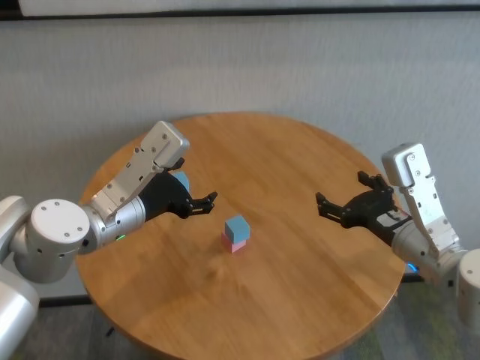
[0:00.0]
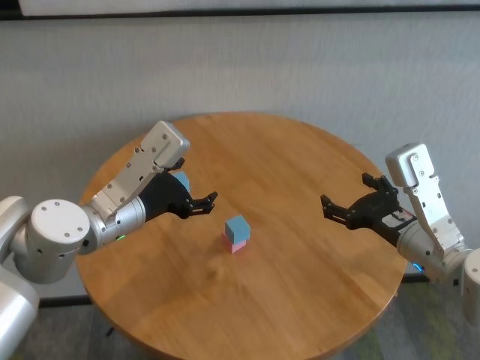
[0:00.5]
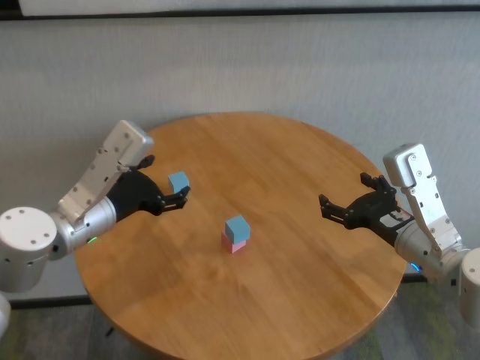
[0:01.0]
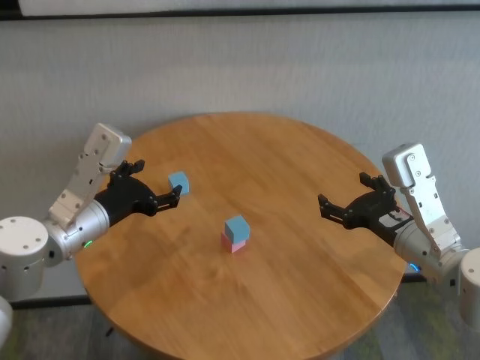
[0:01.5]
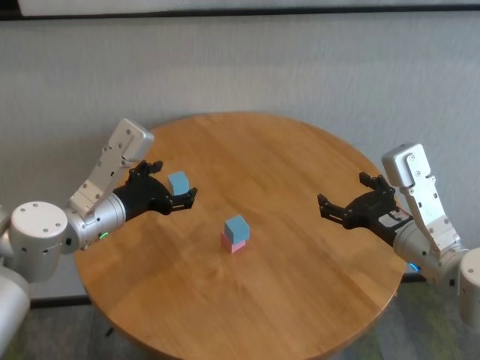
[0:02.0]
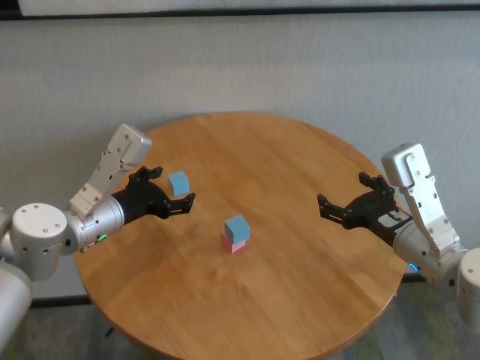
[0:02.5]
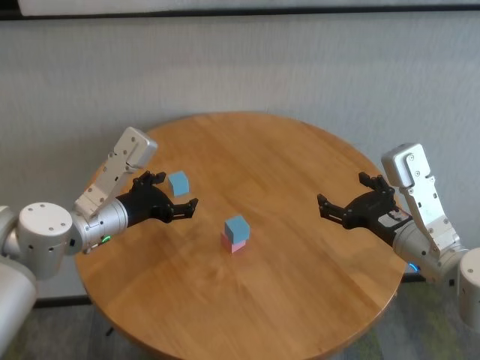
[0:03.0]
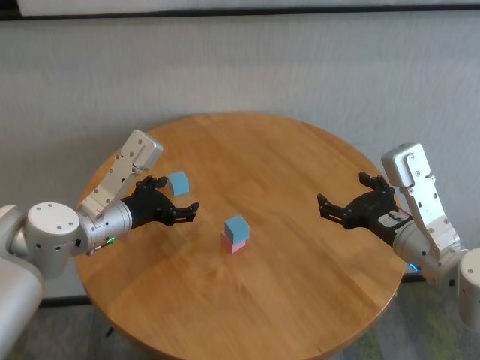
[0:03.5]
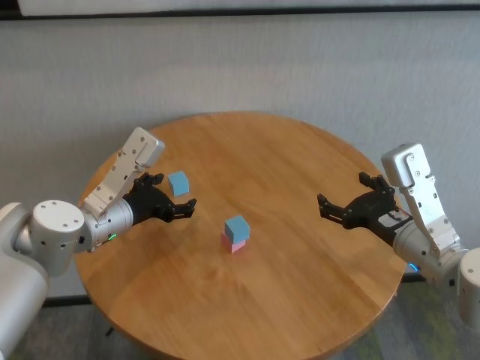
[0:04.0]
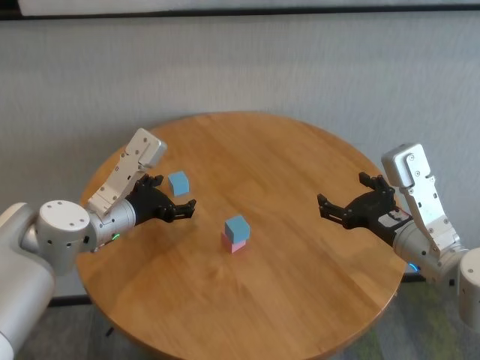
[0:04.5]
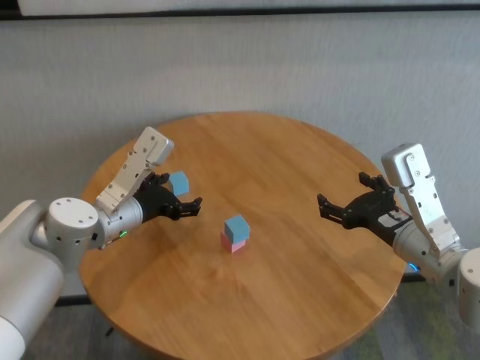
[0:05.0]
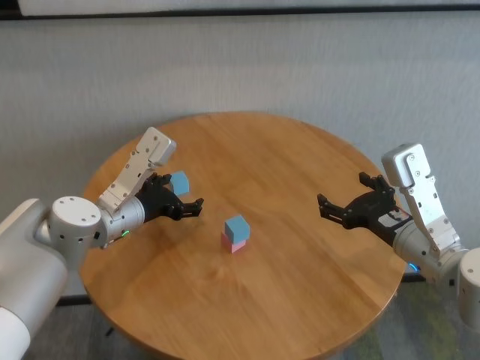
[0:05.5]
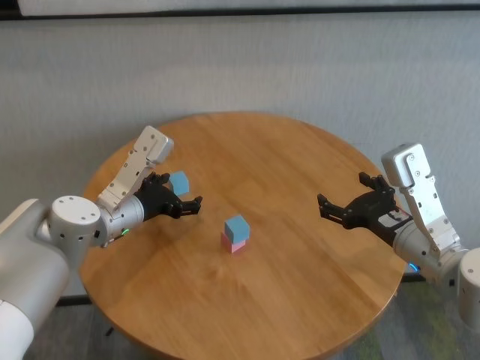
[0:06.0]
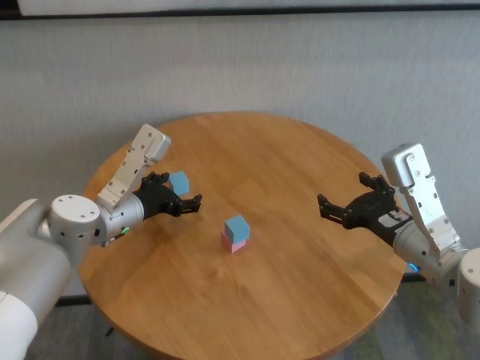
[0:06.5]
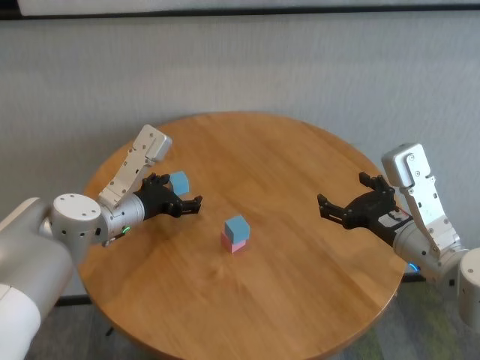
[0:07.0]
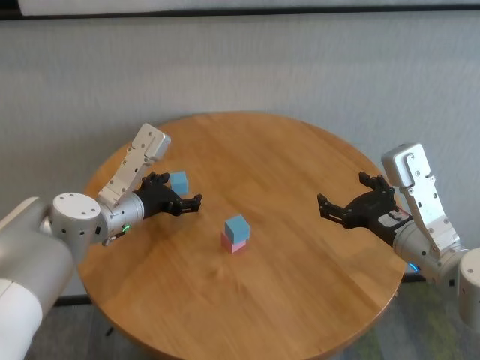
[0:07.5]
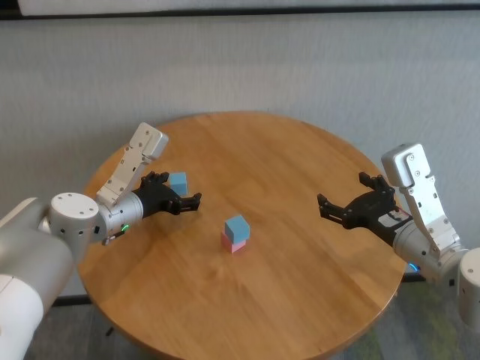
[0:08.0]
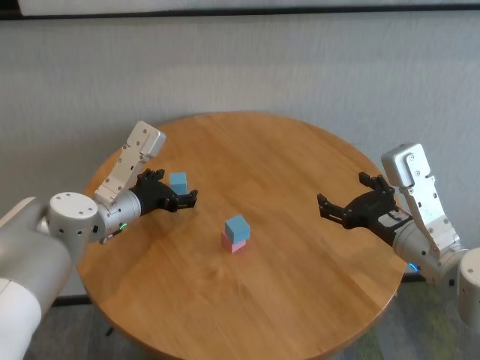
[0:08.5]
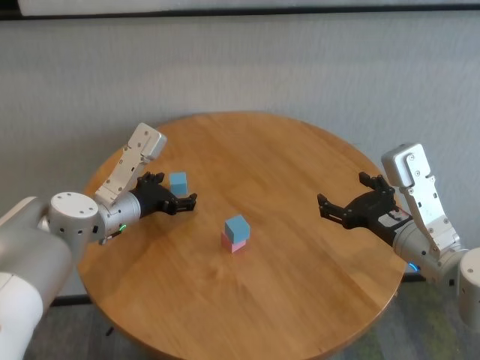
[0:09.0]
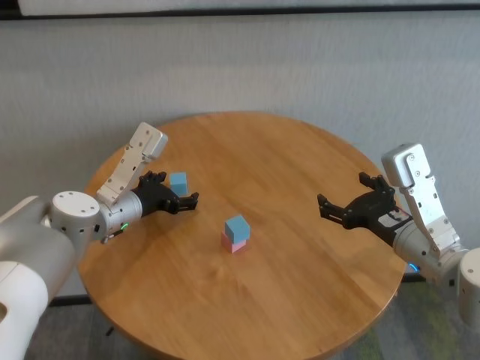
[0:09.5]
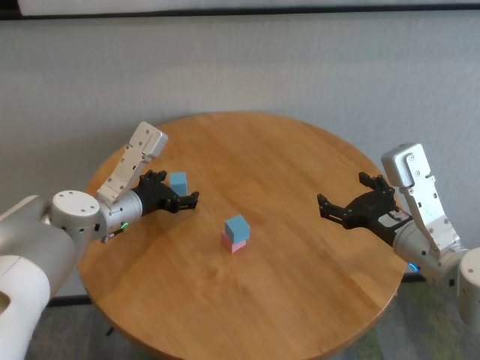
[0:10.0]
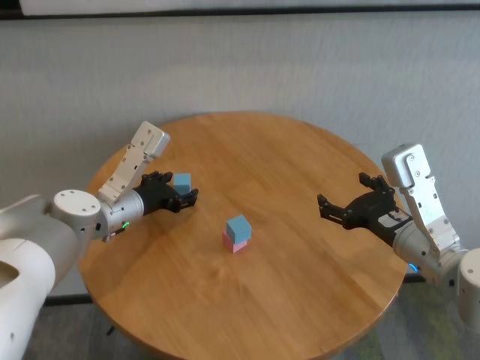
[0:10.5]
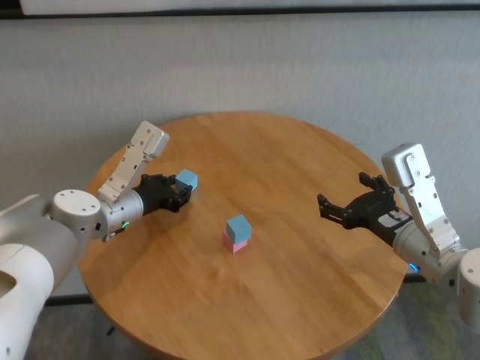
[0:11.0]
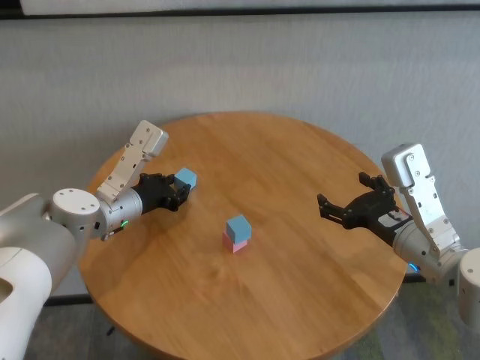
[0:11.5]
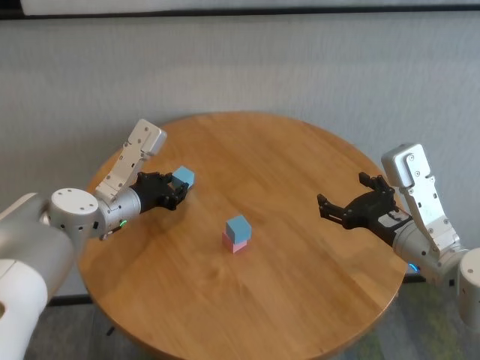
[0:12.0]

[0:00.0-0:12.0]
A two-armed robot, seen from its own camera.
Task of the whole recording: stack building blocks on the table.
Step, 0:00.0 to 0:11.0: Grasp the blue building block with left gripper.

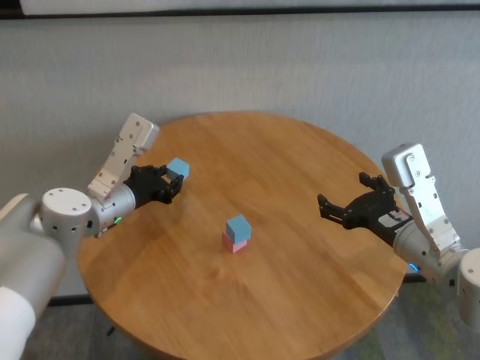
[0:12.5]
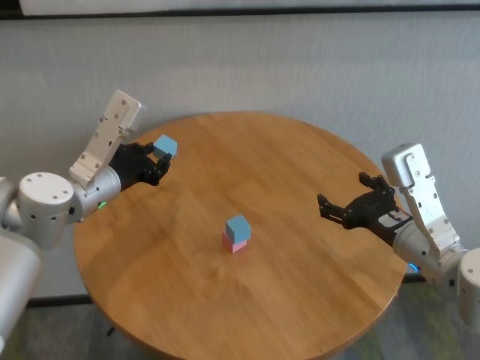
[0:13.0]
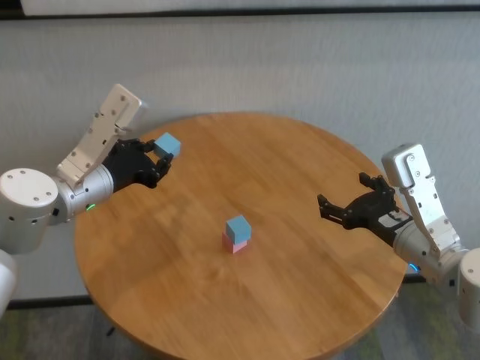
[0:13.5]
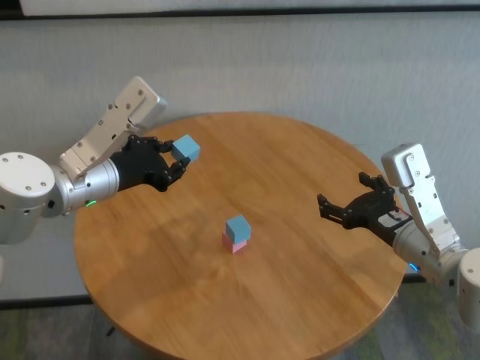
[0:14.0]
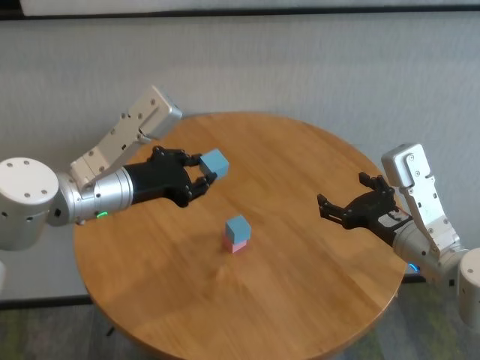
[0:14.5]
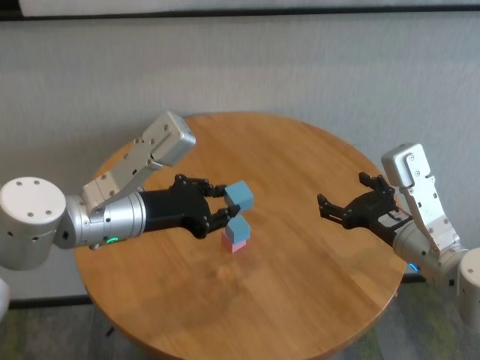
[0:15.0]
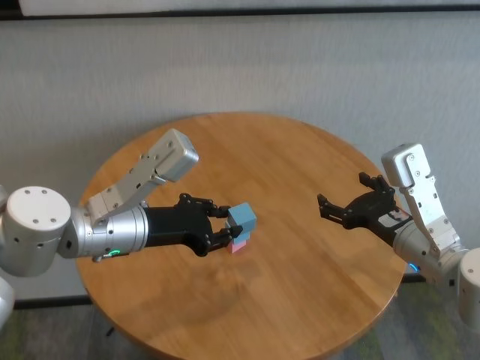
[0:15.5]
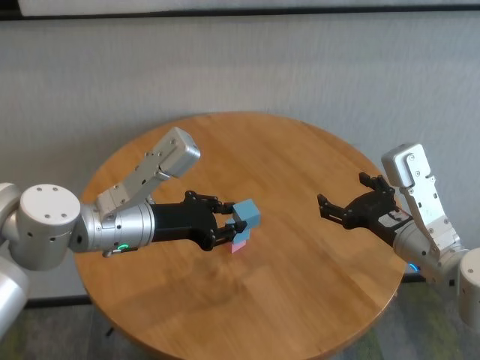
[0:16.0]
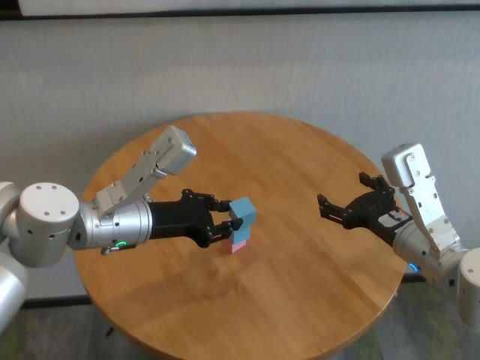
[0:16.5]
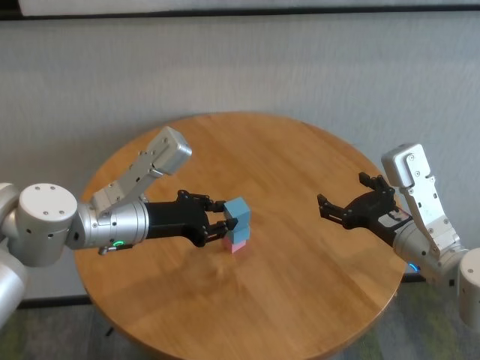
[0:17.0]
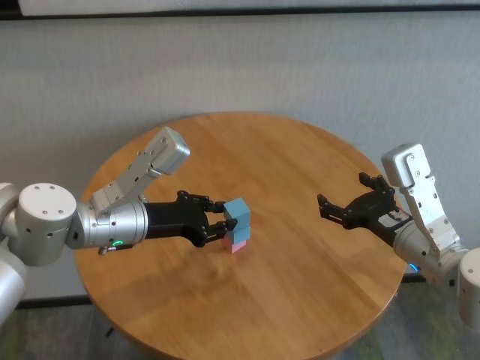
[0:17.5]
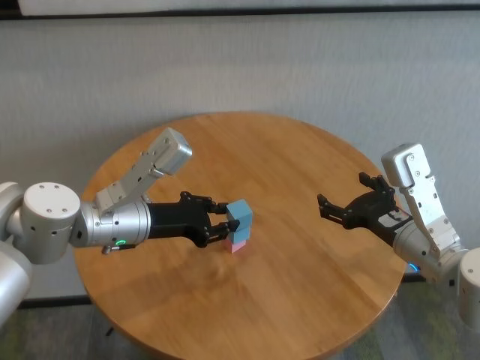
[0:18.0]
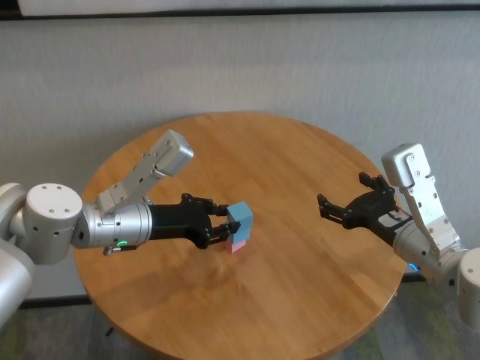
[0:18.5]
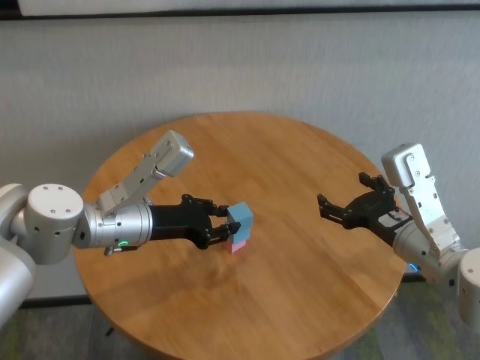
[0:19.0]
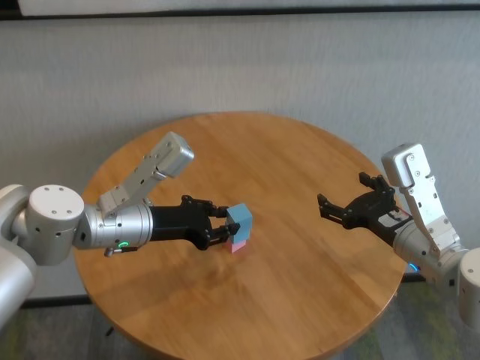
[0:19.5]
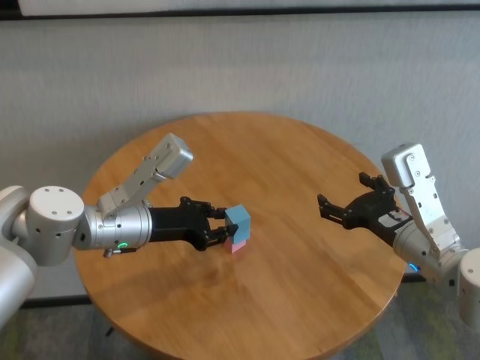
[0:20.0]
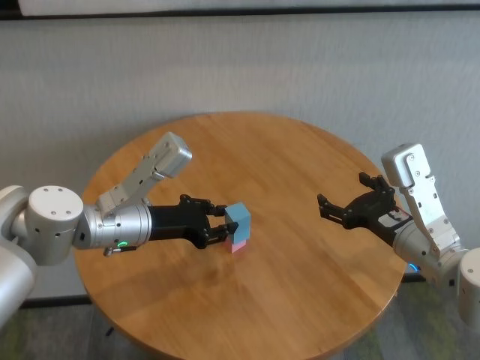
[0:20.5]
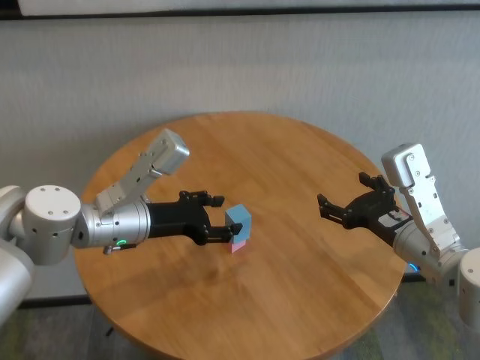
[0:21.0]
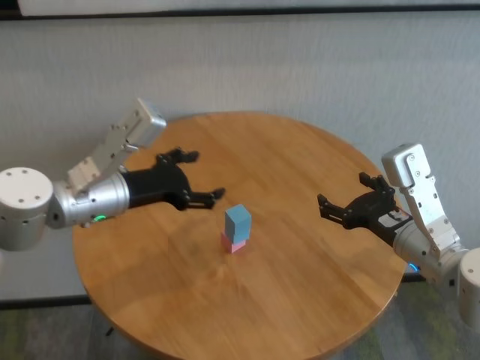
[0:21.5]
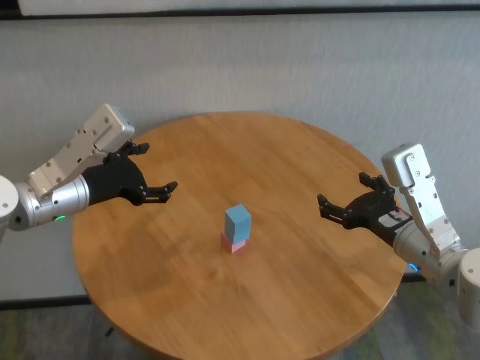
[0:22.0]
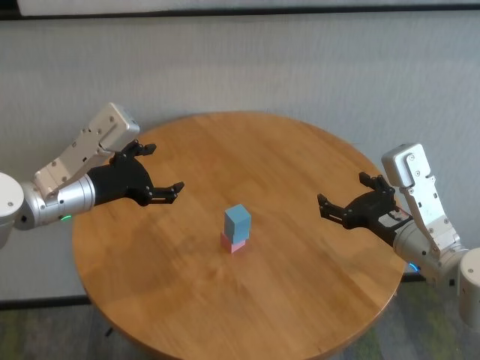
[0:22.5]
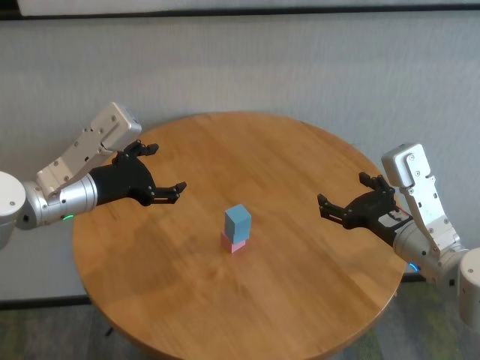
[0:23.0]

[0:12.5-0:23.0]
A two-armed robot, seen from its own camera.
Task of the whole recording: stack building blocks on the table.
Step, 0:12.5 to 0:20.5: Place the blue building block on the blue building blocks with left gripper.
